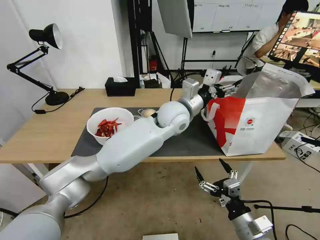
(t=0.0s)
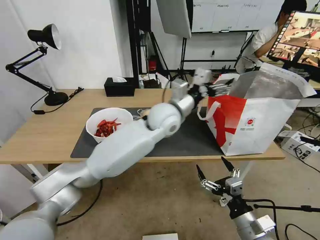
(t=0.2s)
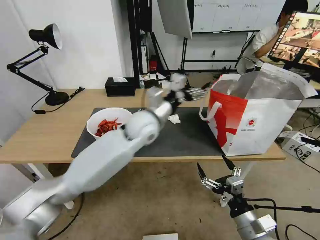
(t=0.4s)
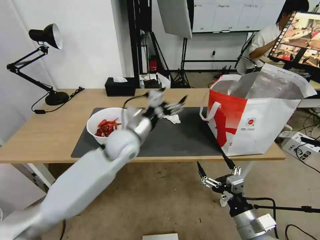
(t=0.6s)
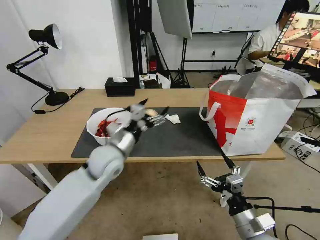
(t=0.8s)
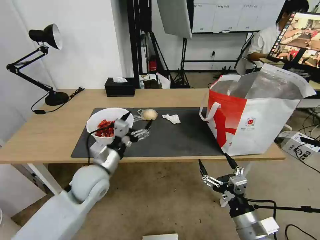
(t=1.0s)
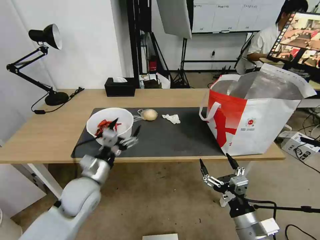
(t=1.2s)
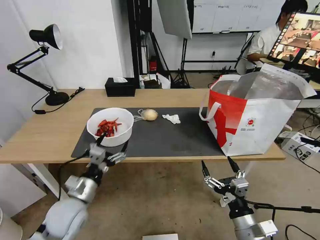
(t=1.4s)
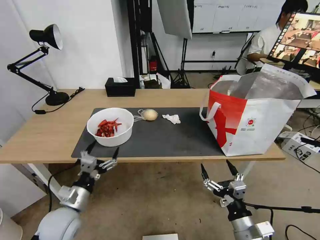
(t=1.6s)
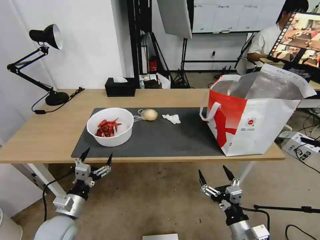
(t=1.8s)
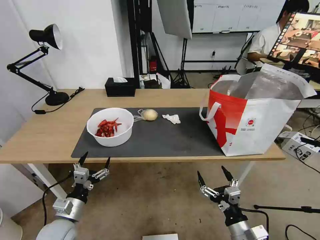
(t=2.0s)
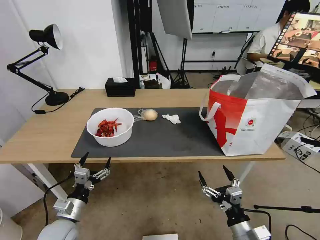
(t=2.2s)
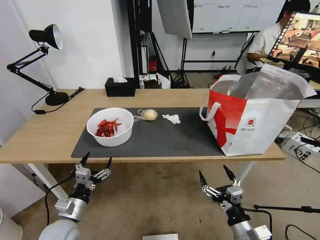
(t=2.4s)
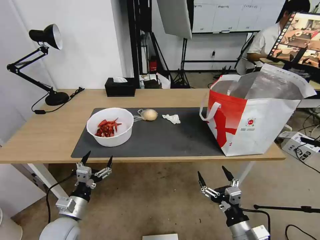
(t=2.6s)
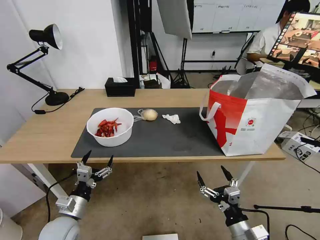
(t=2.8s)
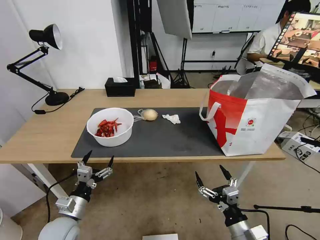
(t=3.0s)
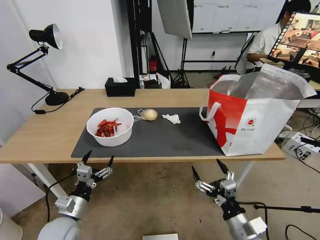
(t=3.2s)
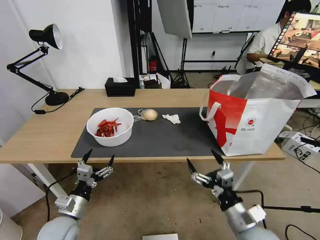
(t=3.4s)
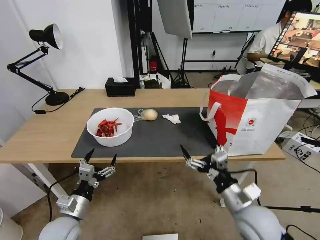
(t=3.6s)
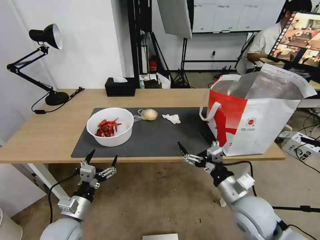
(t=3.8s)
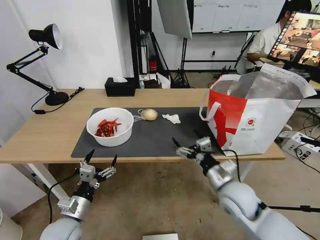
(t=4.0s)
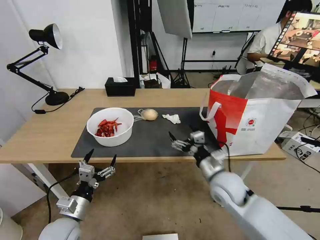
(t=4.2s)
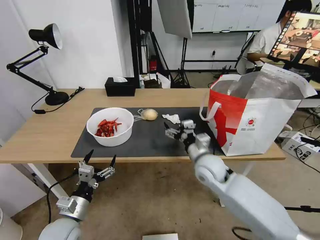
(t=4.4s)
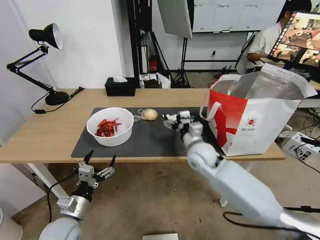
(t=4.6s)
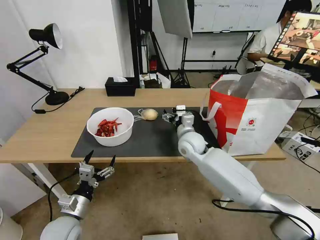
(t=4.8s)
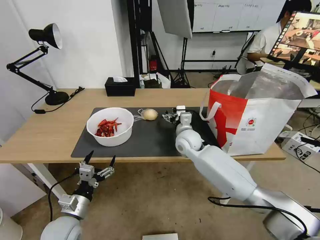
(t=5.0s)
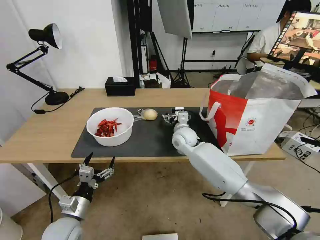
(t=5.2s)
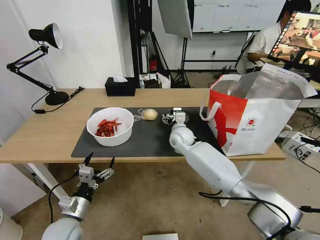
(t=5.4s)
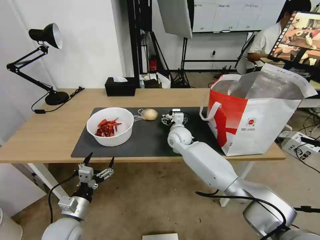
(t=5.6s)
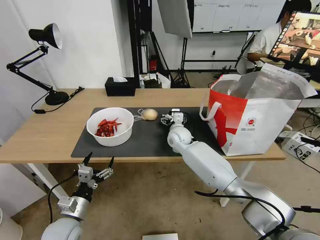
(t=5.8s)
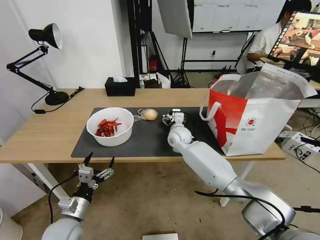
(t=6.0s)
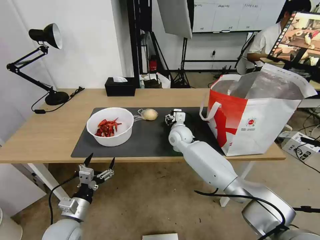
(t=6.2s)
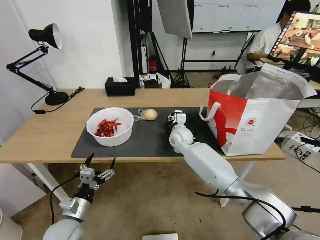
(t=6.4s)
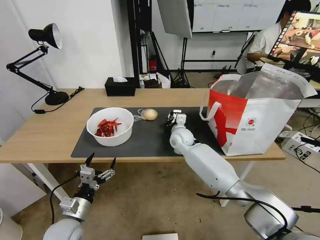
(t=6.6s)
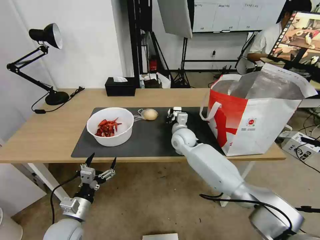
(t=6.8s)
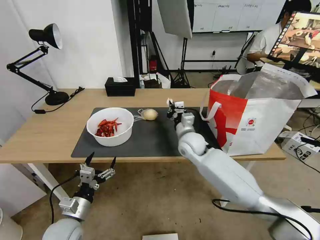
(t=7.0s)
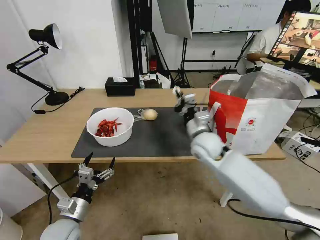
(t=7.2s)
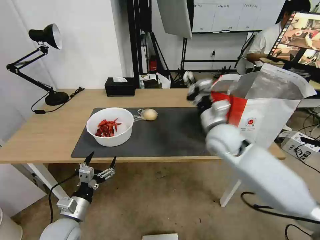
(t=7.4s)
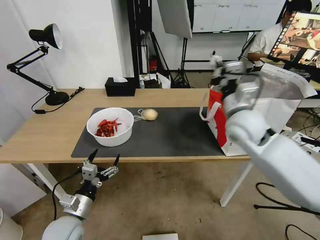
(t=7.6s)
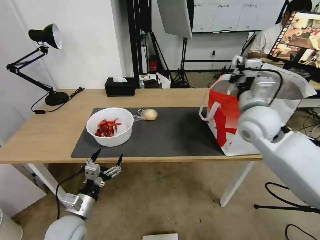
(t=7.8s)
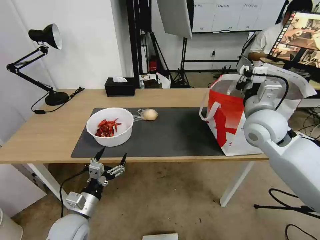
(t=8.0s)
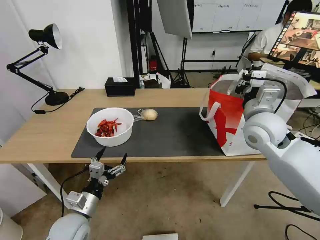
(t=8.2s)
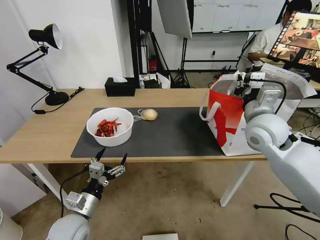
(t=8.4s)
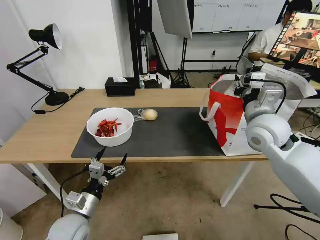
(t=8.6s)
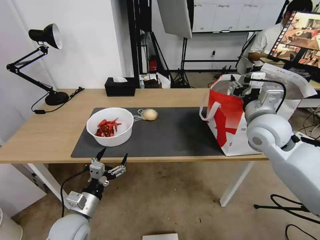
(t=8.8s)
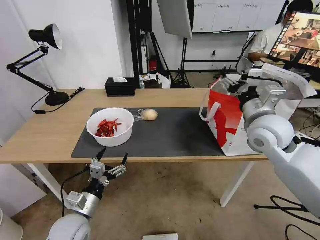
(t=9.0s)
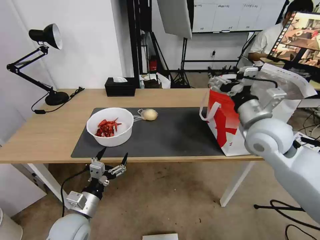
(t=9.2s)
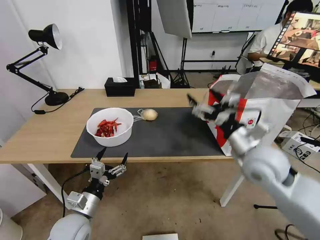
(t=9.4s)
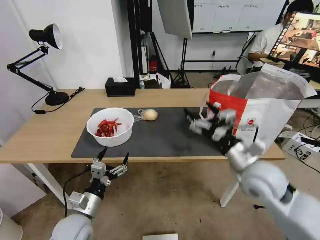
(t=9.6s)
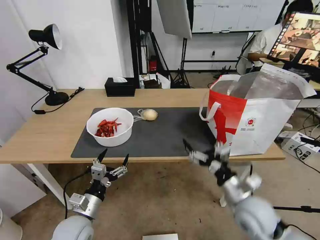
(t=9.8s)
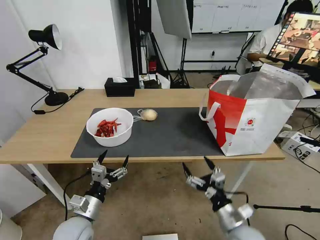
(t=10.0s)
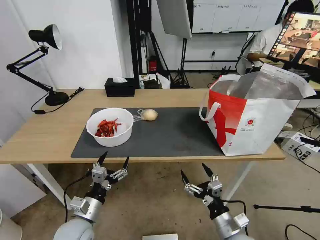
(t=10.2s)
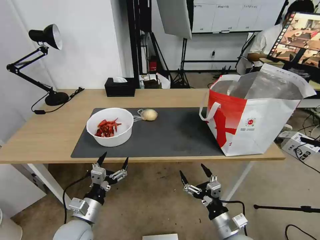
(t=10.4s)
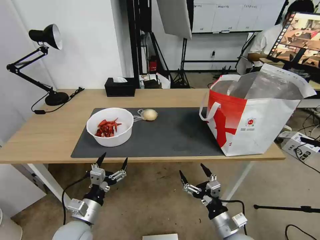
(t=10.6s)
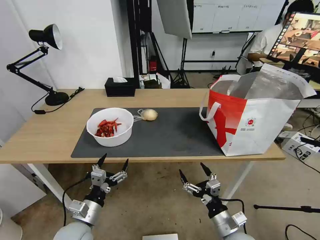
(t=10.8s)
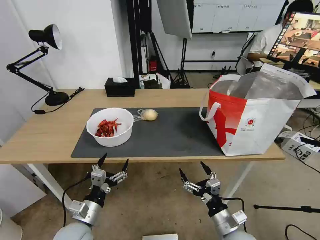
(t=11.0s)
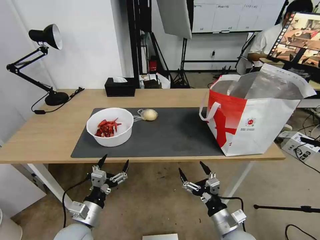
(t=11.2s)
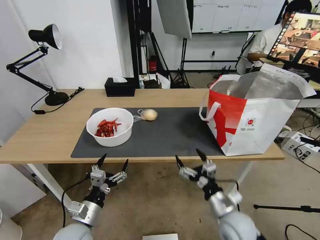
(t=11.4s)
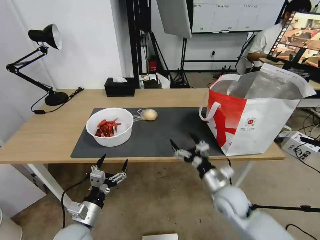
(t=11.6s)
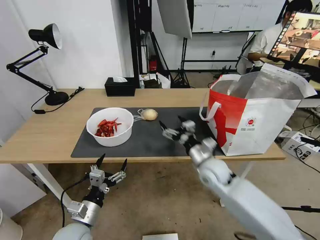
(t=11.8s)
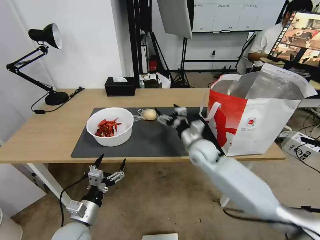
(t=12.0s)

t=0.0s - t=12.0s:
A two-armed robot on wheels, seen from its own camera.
Task of the whole recording: Pick up the trash from the table and place it into the takeout bag.
t=0.0s - t=1.6s: The left gripper shifts roughly 50 cm to the left, backward and downward.
t=1.6s - t=3.0s: There are only small adjustments of the grippers.
t=3.0s - t=4.4s: The right gripper shifts about 25 cm forward.
t=4.4s - t=6.0s: The right gripper is displaced forward and to the left by roughly 20 cm.
t=6.0s - t=7.6s: The right gripper goes about 25 cm upward, to the right and backward, and closes up.
t=7.6s - t=9.0s: The right gripper moves some 5 cm, and opens.
t=9.0s - t=10.4s: The right gripper goes about 35 cm downward and backward.
t=10.4s - t=12.0s: The right gripper goes about 30 cm forward and upward.

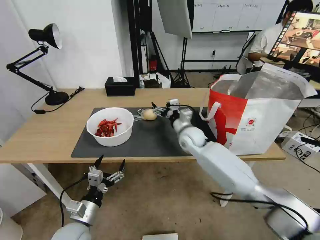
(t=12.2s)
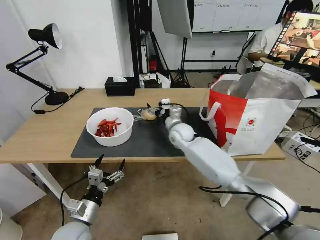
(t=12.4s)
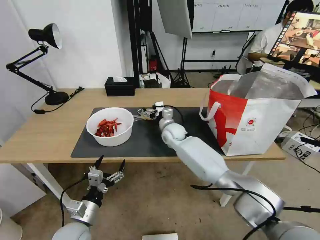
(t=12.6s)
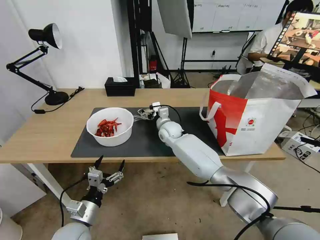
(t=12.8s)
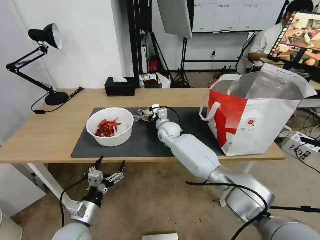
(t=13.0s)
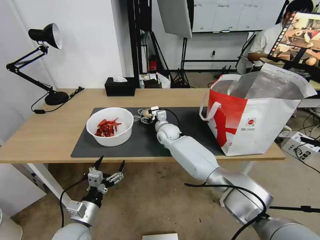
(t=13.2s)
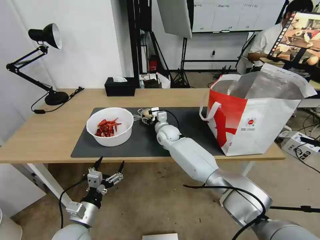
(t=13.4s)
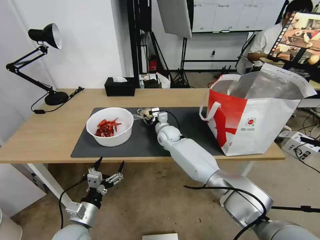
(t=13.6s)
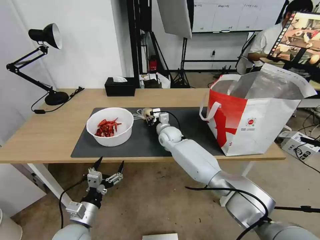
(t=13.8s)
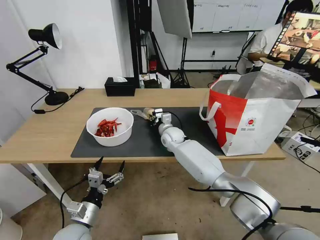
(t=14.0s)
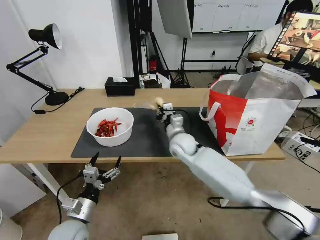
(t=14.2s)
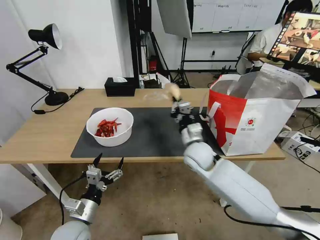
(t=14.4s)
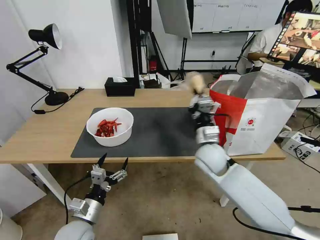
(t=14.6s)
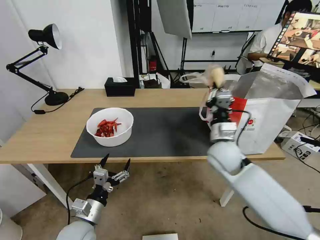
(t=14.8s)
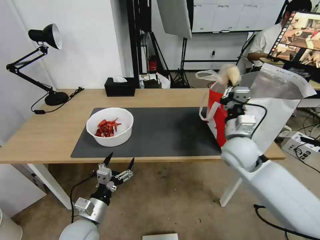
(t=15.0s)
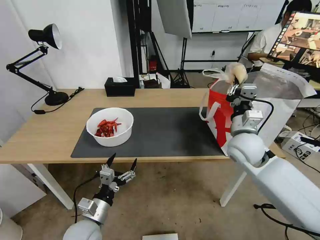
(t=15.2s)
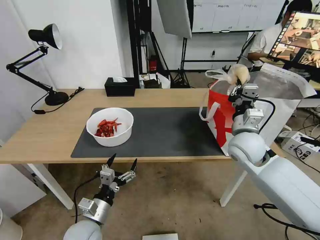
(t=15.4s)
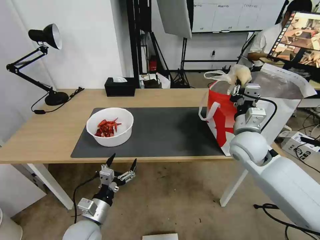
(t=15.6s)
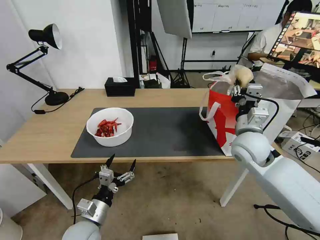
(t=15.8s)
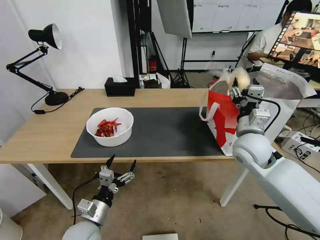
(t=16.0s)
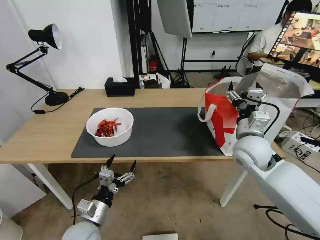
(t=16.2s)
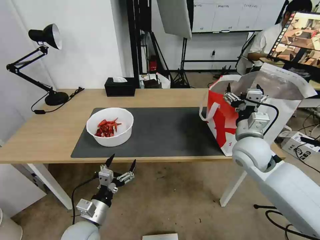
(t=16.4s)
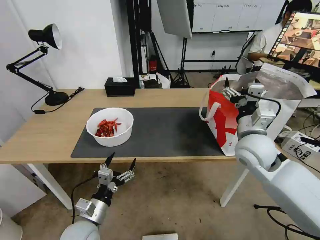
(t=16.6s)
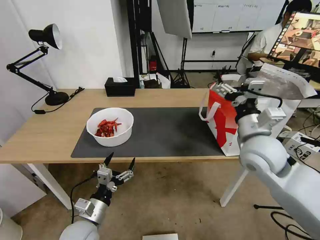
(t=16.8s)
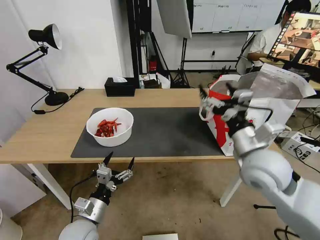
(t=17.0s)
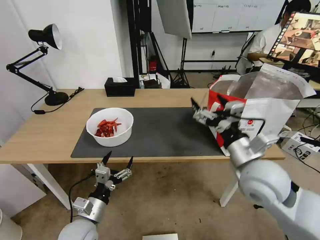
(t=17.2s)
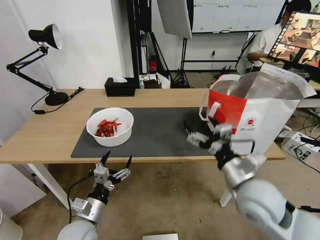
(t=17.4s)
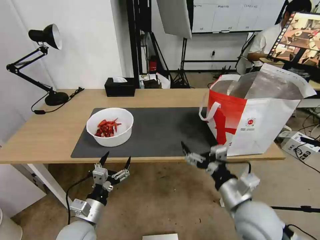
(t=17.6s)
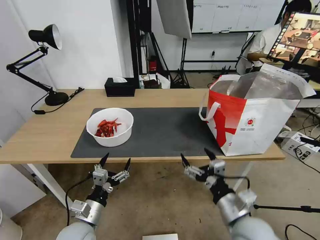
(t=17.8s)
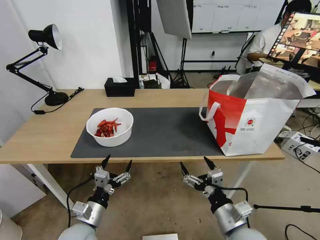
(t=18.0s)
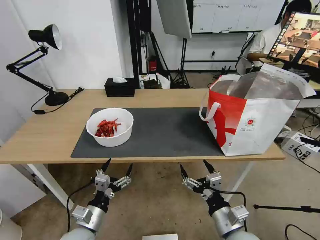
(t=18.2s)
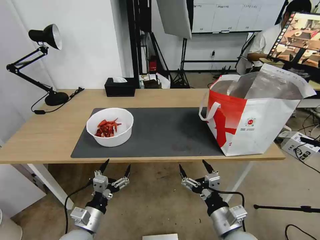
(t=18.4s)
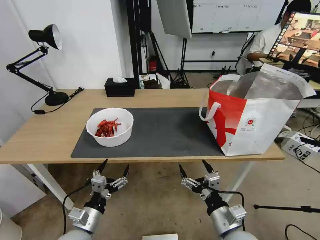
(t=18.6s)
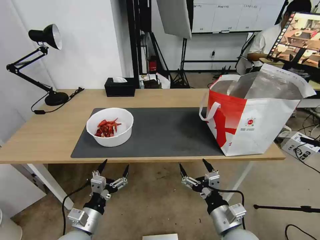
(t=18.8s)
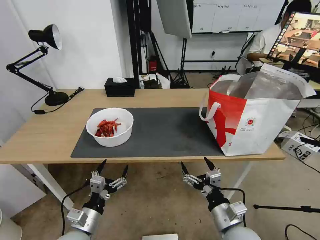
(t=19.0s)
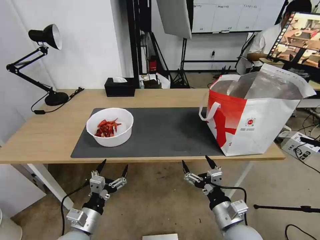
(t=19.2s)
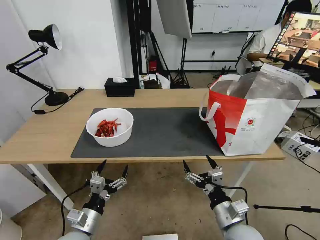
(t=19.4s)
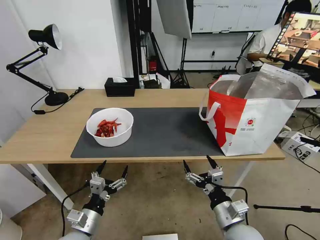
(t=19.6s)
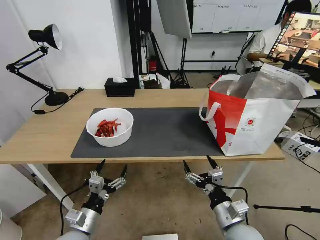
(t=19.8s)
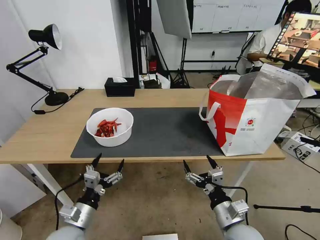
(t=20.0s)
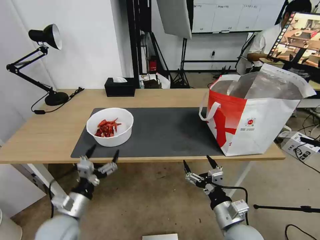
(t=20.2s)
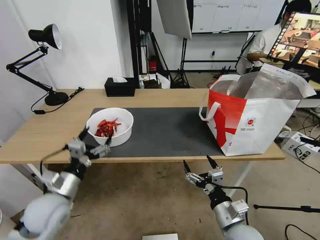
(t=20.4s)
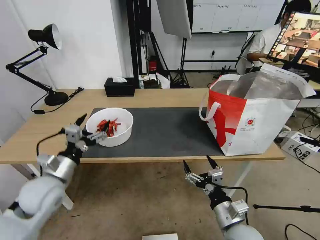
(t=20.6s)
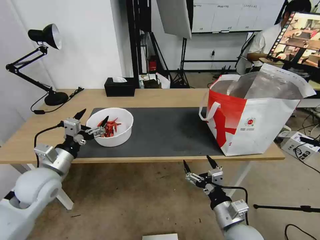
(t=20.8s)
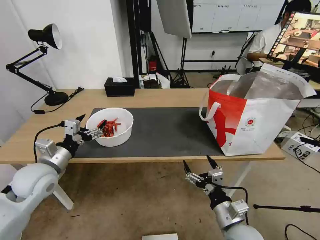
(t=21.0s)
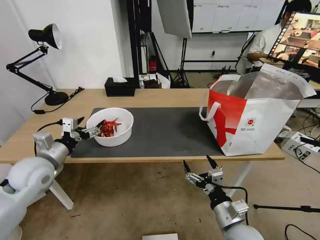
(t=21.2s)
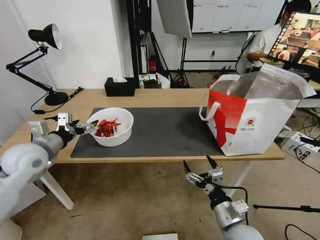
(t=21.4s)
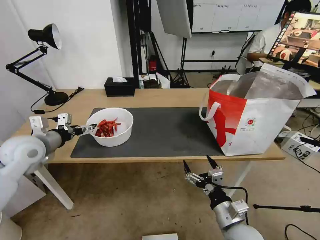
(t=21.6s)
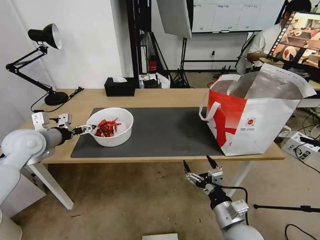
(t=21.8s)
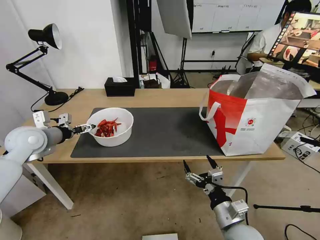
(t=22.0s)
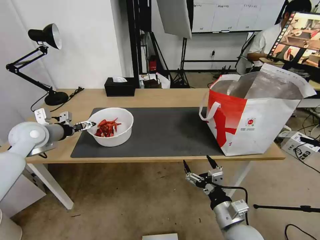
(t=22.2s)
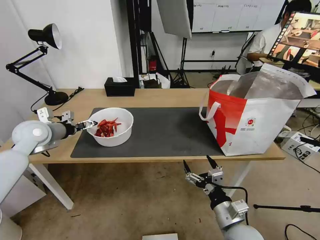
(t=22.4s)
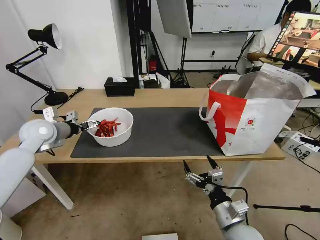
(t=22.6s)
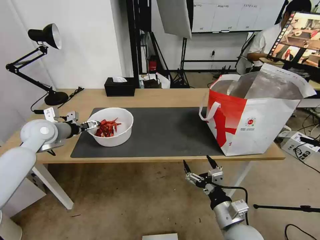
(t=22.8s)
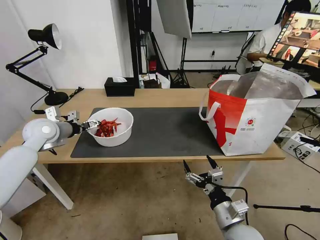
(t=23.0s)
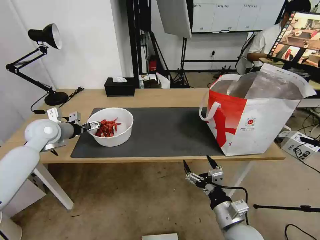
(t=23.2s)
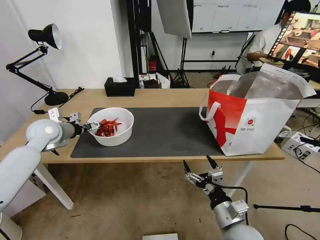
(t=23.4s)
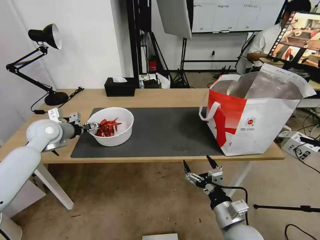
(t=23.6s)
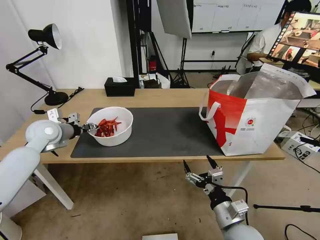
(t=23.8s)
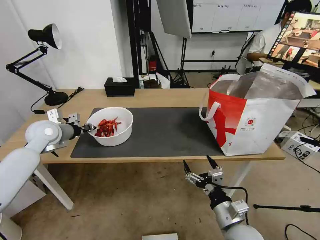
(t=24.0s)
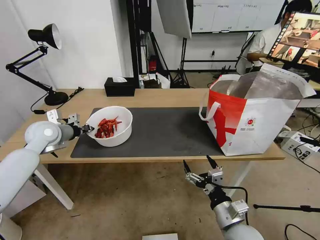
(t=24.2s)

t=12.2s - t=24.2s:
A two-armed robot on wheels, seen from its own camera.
Task of the whole recording: Pick up the trash from the table and place it into the takeout bag.
t=12.2s - t=13.8s: The right gripper shifts some 10 cm to the left and forward, and closes its fingers.
t=13.8s - t=15.2s: The right gripper shifts about 30 cm to the right, backward and upward.
t=15.2s - t=16.6s: The right gripper opens.
t=16.6s - t=18.2s: The right gripper travels backward and downward by roughly 25 cm.
t=18.2s - t=19.8s: There are only small adjustments of the grippers.
t=19.8s - t=21.2s: The left gripper moves upward, forward and to the left, approximately 25 cm.
t=21.2s - t=22.6s: The left gripper is displaced forward by about 10 cm.
t=22.6s - t=24.2s: The left gripper closes.
